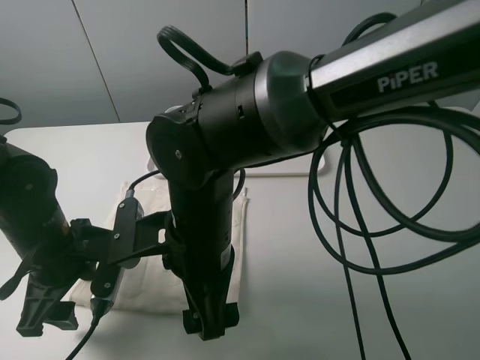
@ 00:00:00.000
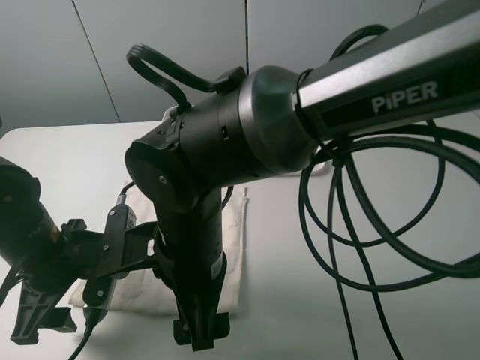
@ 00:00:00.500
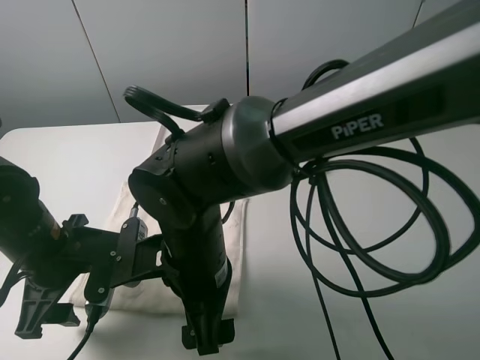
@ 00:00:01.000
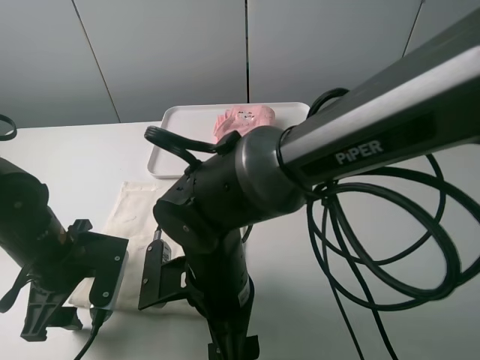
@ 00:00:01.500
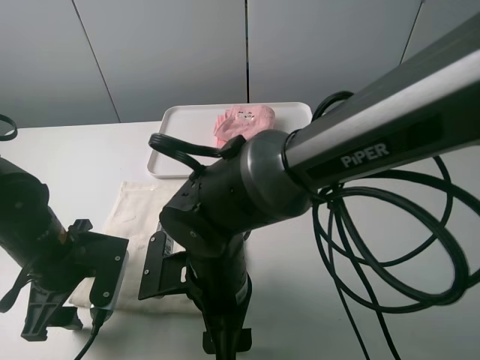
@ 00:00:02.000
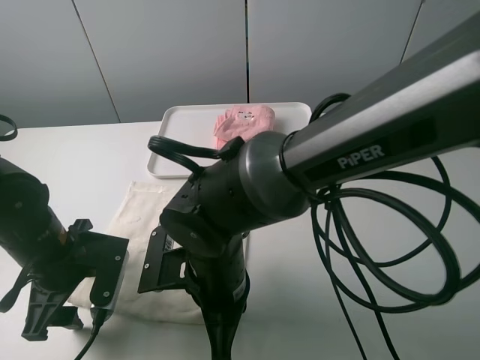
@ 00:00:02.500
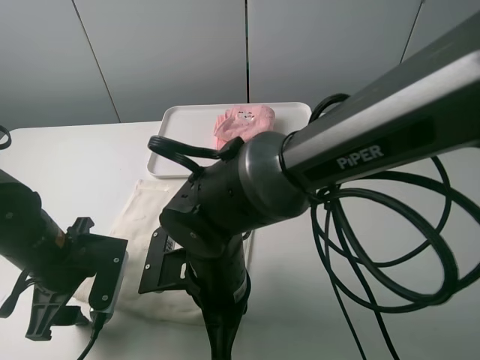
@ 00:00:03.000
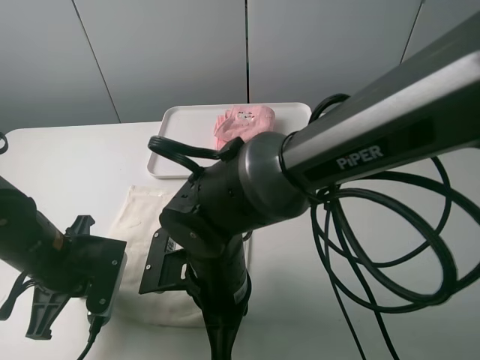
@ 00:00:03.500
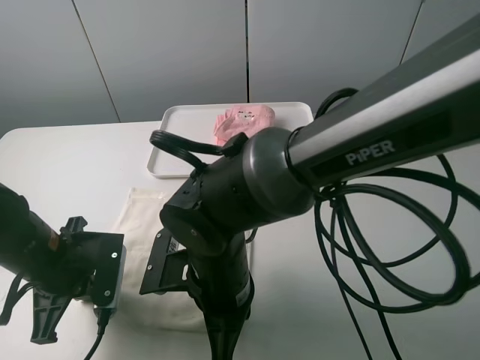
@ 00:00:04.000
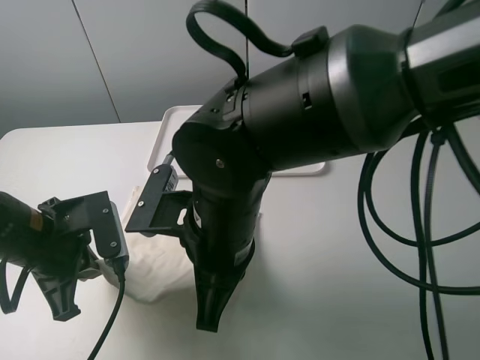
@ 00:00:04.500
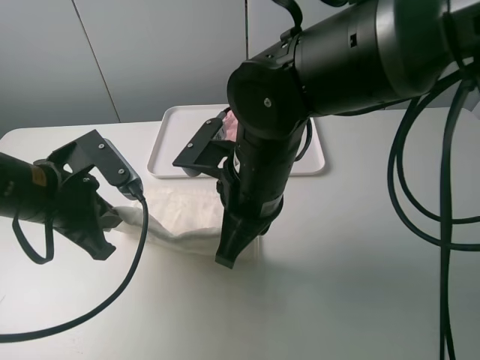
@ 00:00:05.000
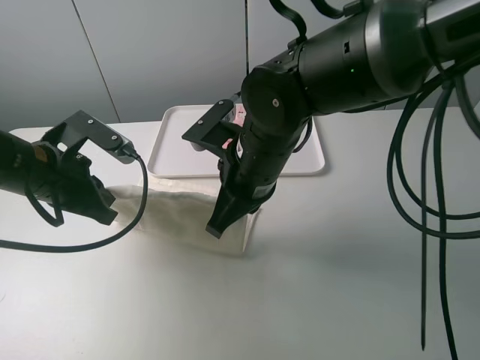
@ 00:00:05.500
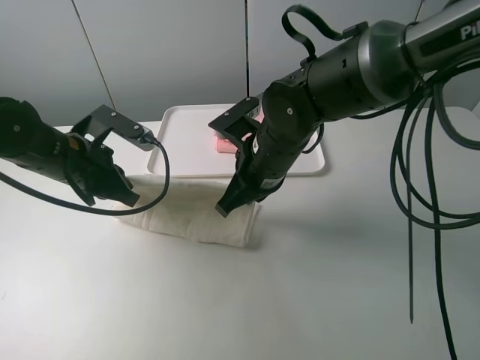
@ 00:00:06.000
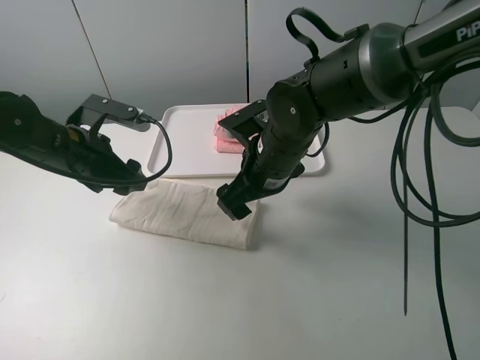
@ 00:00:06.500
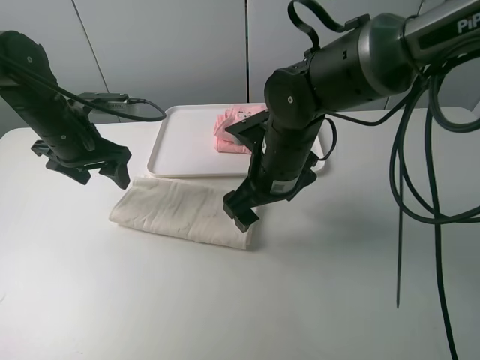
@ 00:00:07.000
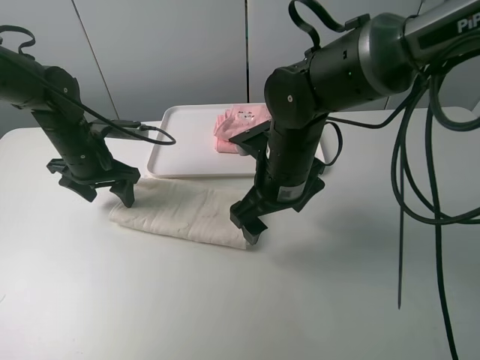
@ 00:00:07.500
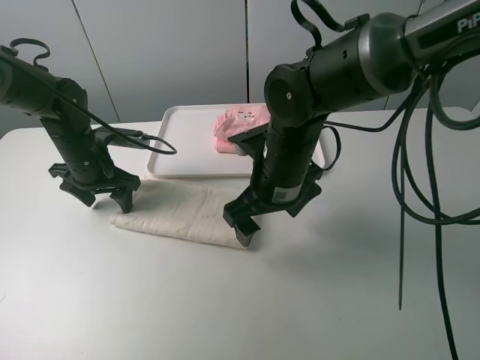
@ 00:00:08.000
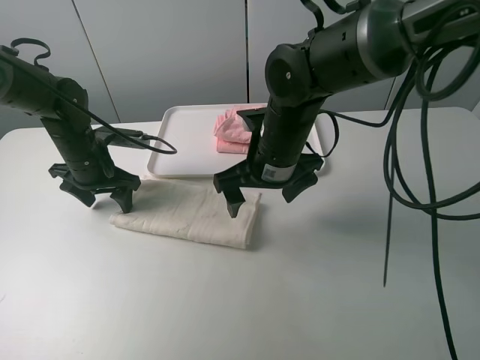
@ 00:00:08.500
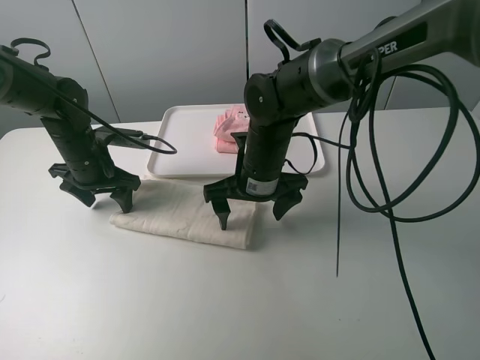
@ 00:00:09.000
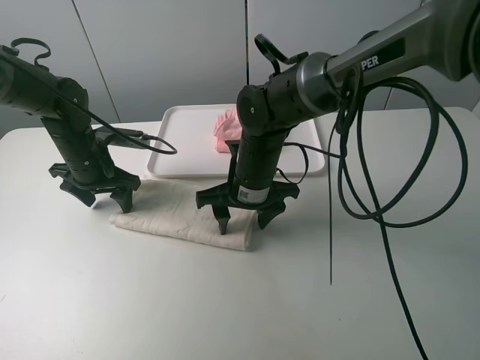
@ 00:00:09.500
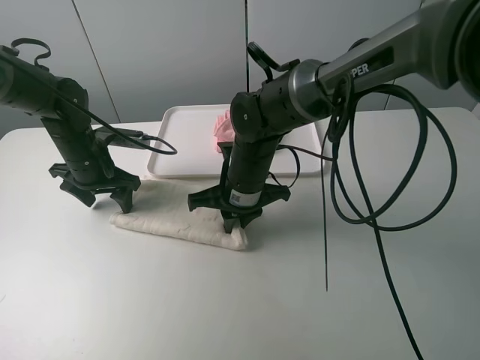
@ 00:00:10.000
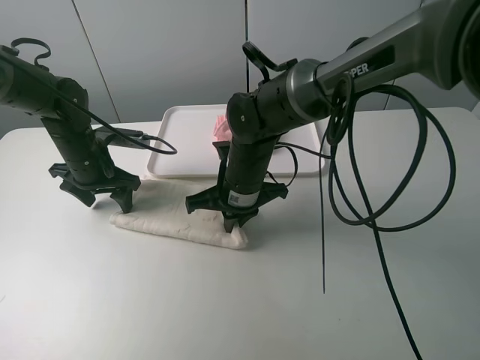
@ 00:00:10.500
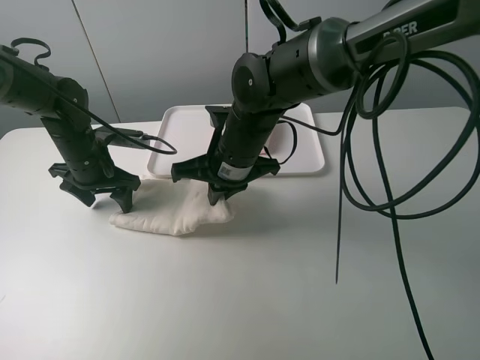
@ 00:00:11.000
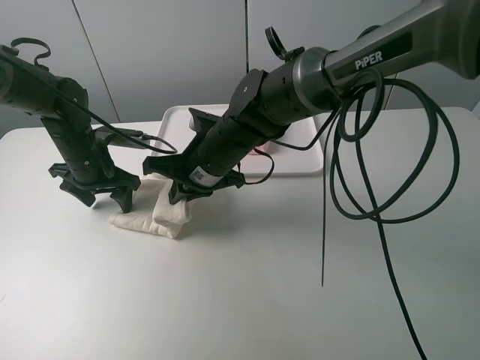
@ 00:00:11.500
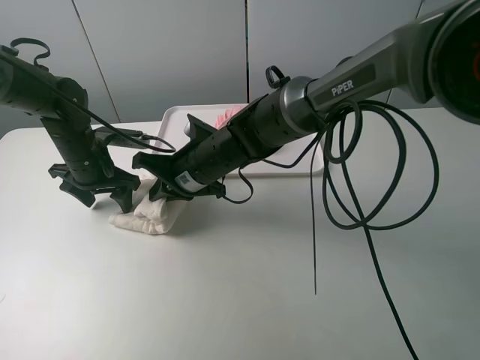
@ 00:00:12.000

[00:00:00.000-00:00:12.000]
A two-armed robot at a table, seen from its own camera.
Task of the whole recording: fold one of the towels by two grippers and place it on the tray,then fold another towel by two grippers and place it on the folded towel.
Step, 00:00:00.000 to 00:00:03.500: Grasp the white towel with the left gripper.
Step, 00:00:04.500 to 00:00:06.500: Fold the white towel upwards with the left gripper.
Step, 00:00:07.000 to 00:00:08.000: Press the white towel with the left gripper.
Step, 00:00:08.500 to 00:00:10.000: Grasp the white towel with the right gripper.
00:00:00.000 to 00:00:02.000: The right gripper goes some 5 cm downward.
00:00:02.000 to 00:00:04.000: The left gripper closes. Meanwhile the right gripper closes up.
00:00:04.000 to 00:00:06.000: The right gripper travels forward and to the right by some 15 cm. The left gripper shifts roughly 10 cm forward.
00:00:06.000 to 00:00:08.000: The right gripper opens up; the left gripper is displaced forward and downward by some 10 cm, and opens its fingers.
00:00:08.000 to 00:00:10.000: The right gripper travels downward by roughly 5 cm, and closes its fingers.
00:00:10.000 to 00:00:12.000: The right gripper goes approximately 5 cm to the left.

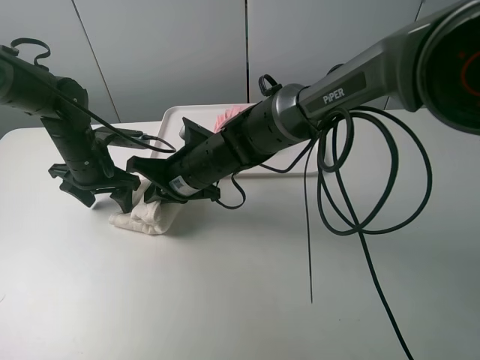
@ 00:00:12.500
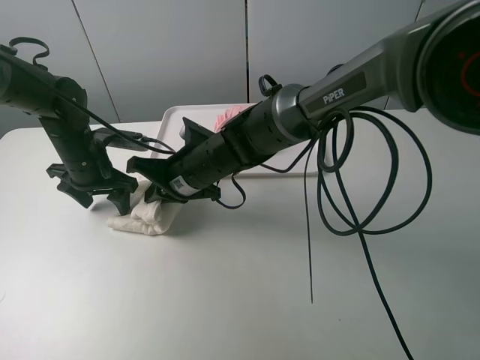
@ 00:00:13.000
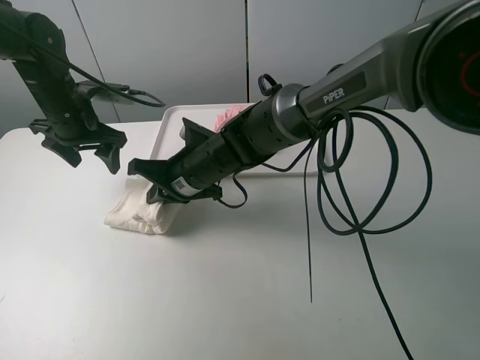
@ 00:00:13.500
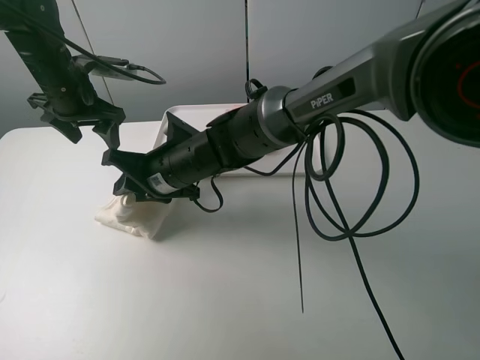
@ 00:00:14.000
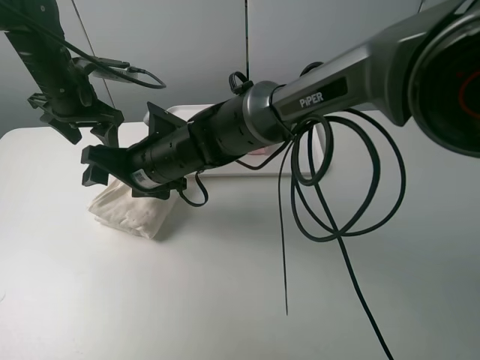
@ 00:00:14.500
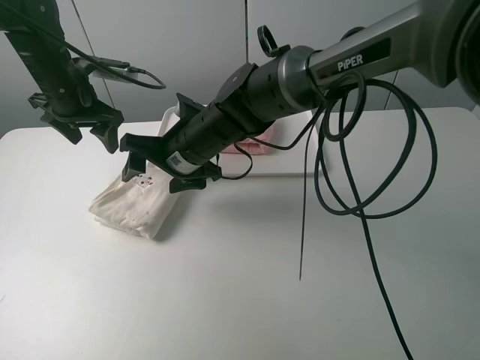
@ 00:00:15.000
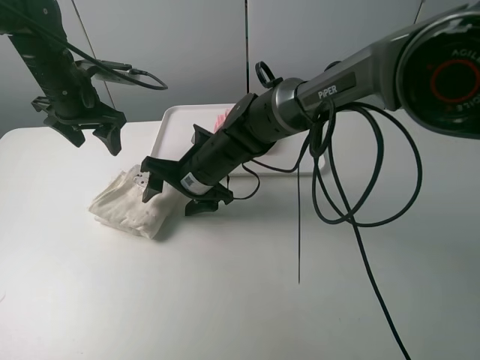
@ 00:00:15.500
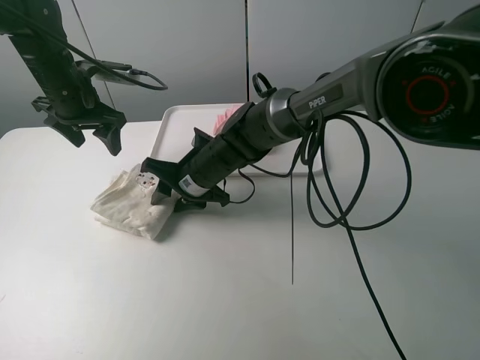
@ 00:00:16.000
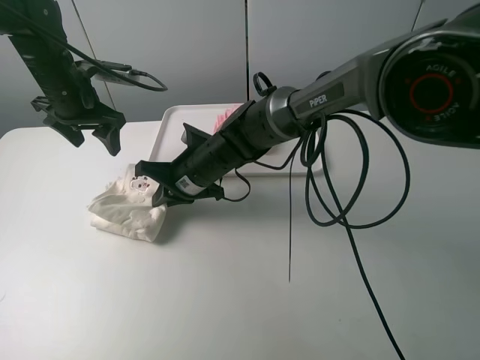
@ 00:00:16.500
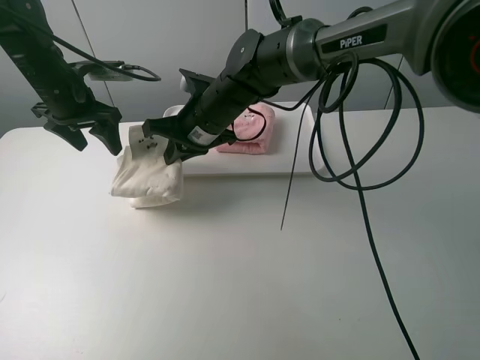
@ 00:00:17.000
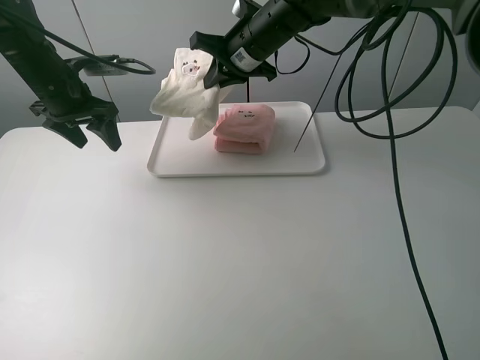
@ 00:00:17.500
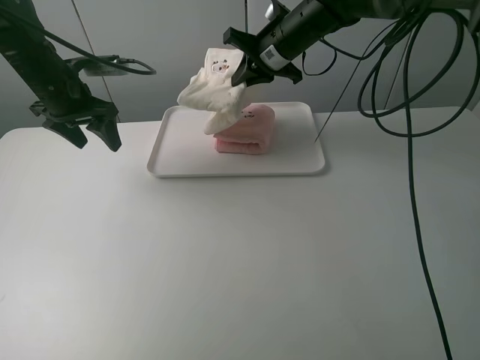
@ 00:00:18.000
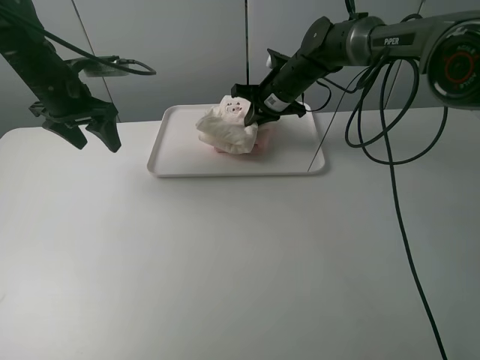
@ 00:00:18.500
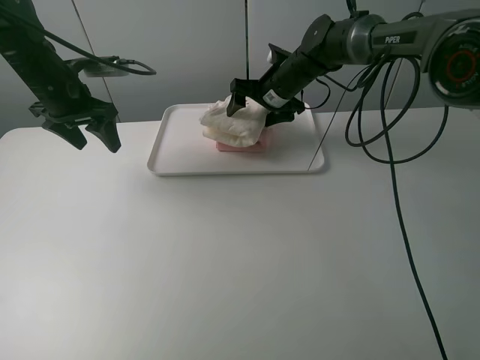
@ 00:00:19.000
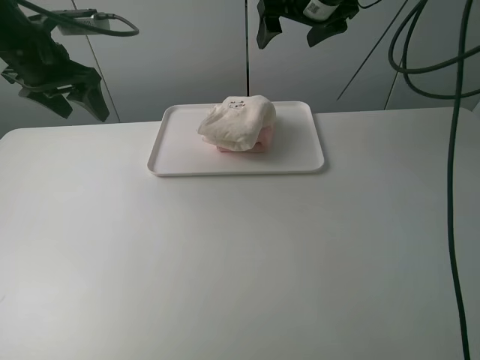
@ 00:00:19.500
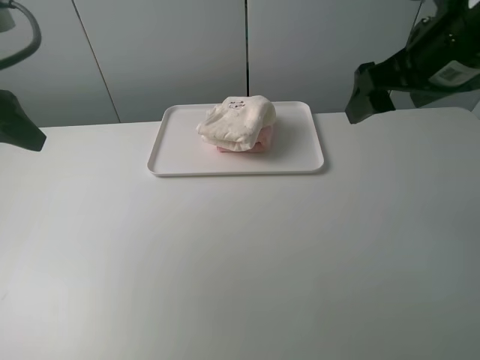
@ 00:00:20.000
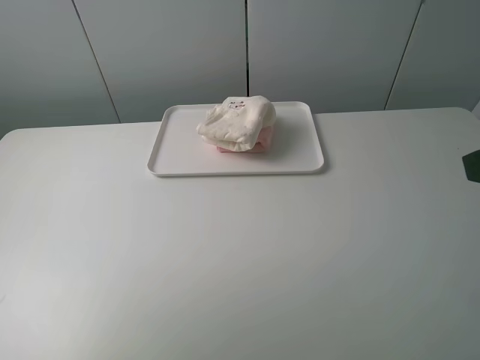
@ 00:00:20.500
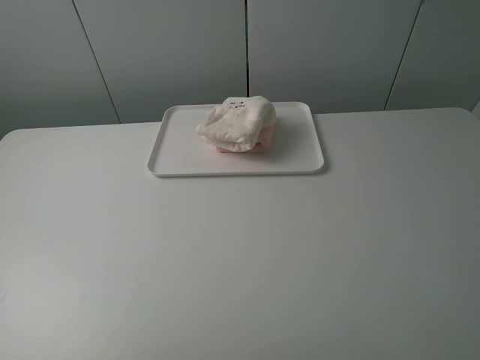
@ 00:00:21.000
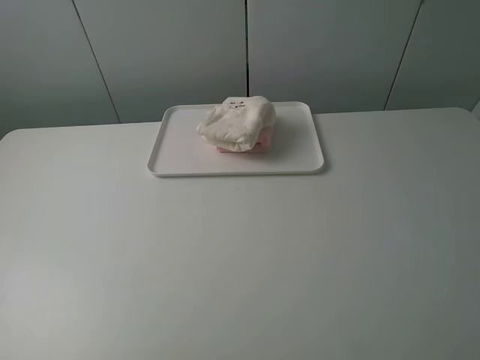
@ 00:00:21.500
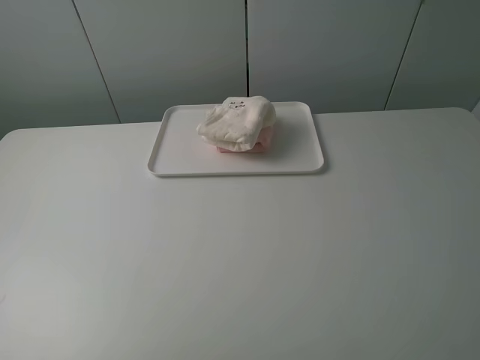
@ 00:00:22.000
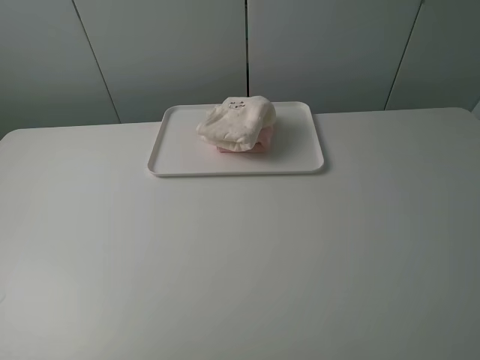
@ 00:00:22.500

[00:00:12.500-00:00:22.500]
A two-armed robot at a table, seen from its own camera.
Task of the whole recording: fold one of the towels by two grippers and place it on the tray,then fold another towel by two grippers and place it on the folded towel.
Step, 00:00:14.500 to 00:00:16.000: Grasp the white towel with the right gripper.
Step, 00:00:16.500 to 00:00:19.000: Place the white towel on the pink towel with the right gripper.
00:00:12.500 to 00:00:14.500: The right gripper moves roughly 5 cm, and opens up; the left gripper is displaced upward by about 10 cm.
00:00:14.500 to 00:00:16.500: The right gripper ends up about 5 cm from where it was, and closes up.
00:00:16.500 to 00:00:18.500: The right gripper goes roughly 20 cm forward and to the right.
00:00:18.500 to 00:00:20.500: The right gripper moves backward, upward and to the right, some 50 cm, and opens. Meanwhile the left gripper moves backward and upward, some 35 cm.
00:00:20.500 to 00:00:22.500: The left gripper goes some 10 cm backward and downward. The right gripper heads backward, covering some 10 cm.

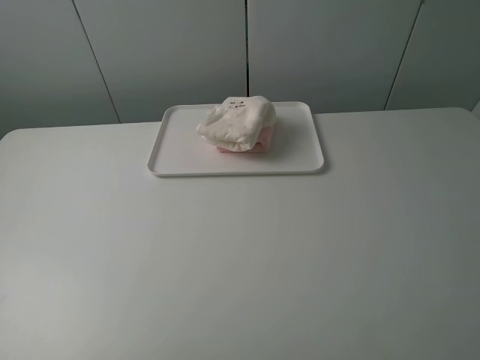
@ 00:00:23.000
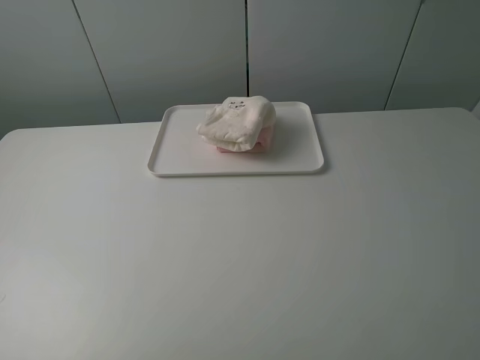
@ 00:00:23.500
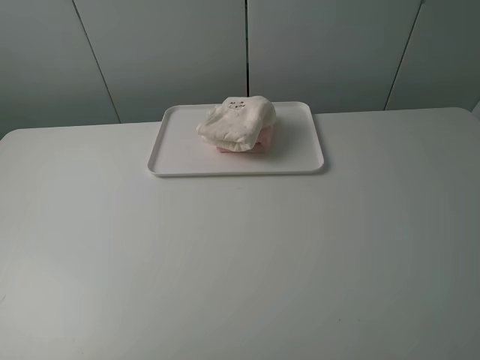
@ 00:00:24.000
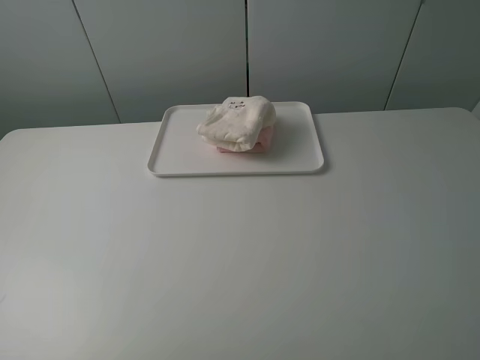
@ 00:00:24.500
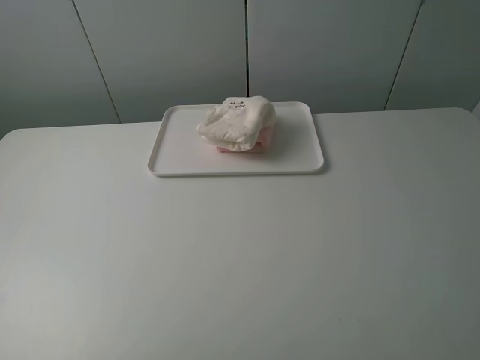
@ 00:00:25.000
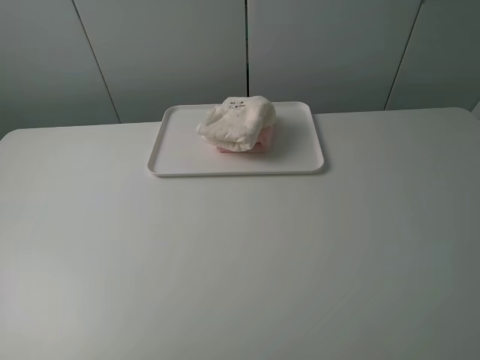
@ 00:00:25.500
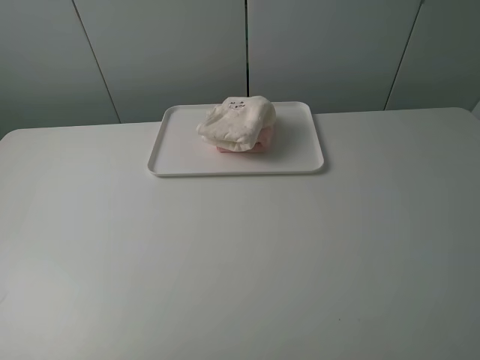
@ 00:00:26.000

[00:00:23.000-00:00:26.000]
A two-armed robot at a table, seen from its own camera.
Task of the whole recording: fold one of the towels by two grippers and place it on the tray,then fold another towel by two grippers and place it on the folded towel.
00:00:23.000 to 00:00:26.000: The two grippers keep their place.
